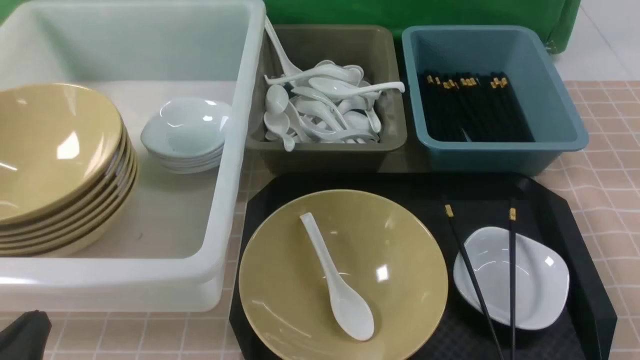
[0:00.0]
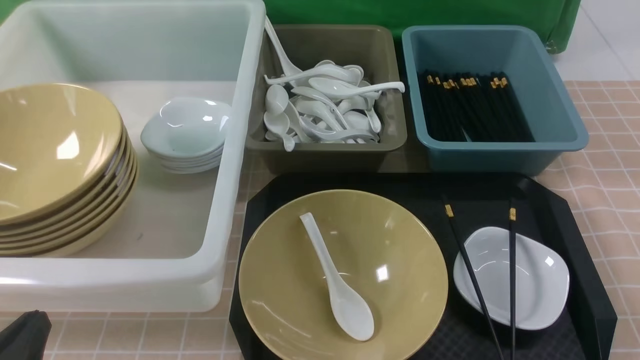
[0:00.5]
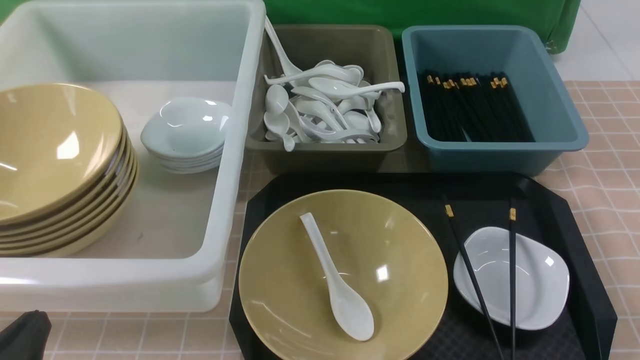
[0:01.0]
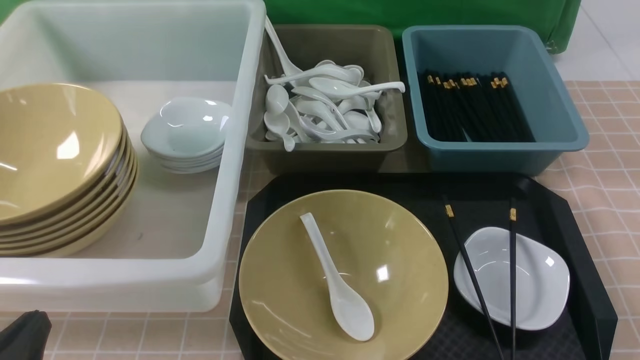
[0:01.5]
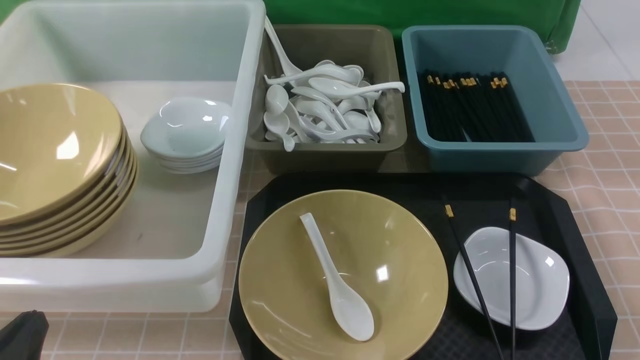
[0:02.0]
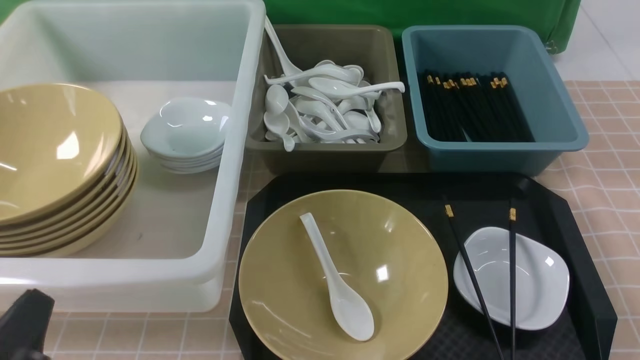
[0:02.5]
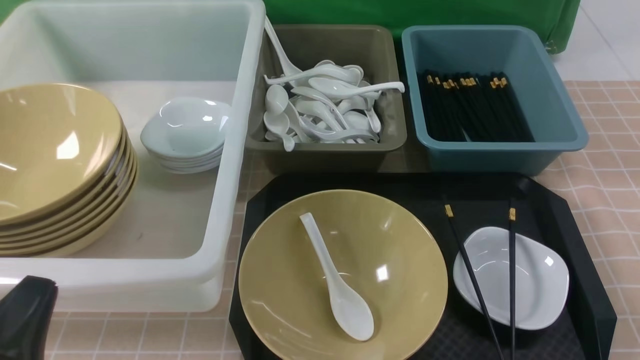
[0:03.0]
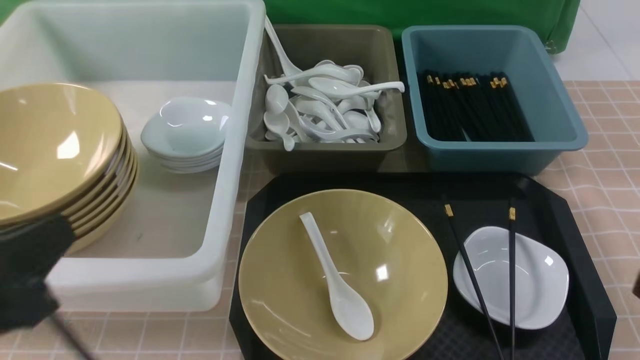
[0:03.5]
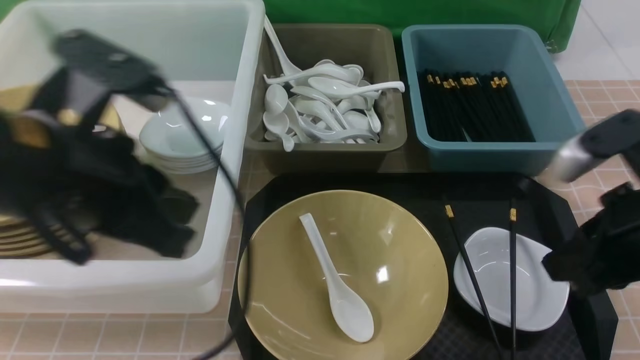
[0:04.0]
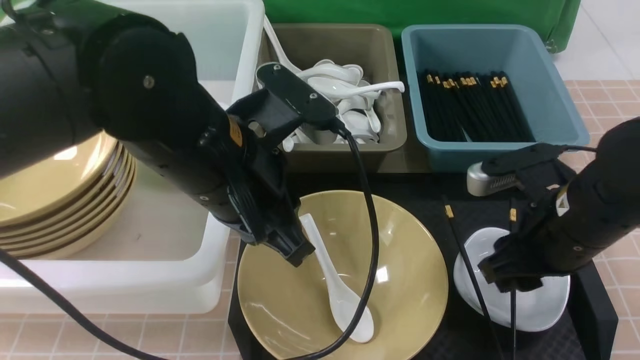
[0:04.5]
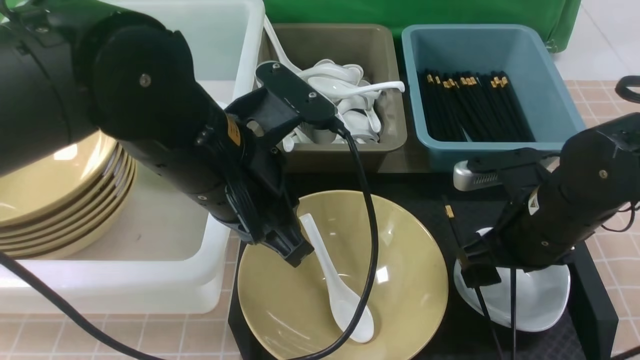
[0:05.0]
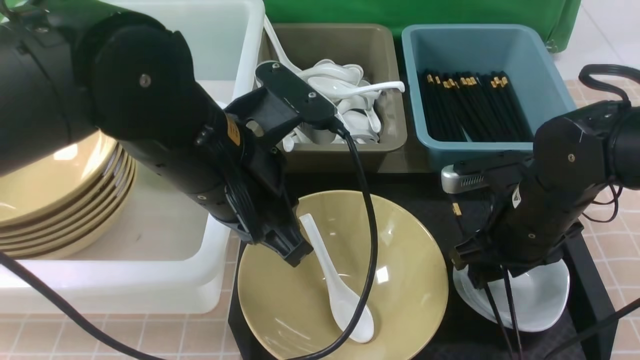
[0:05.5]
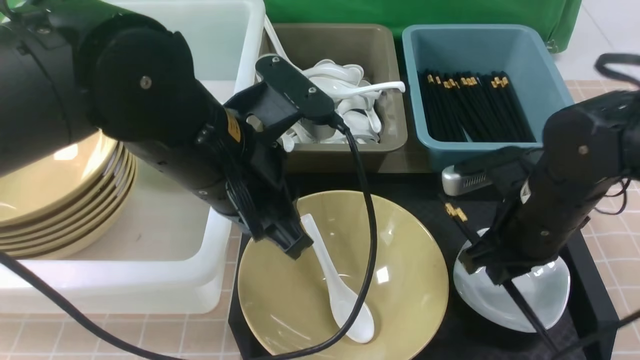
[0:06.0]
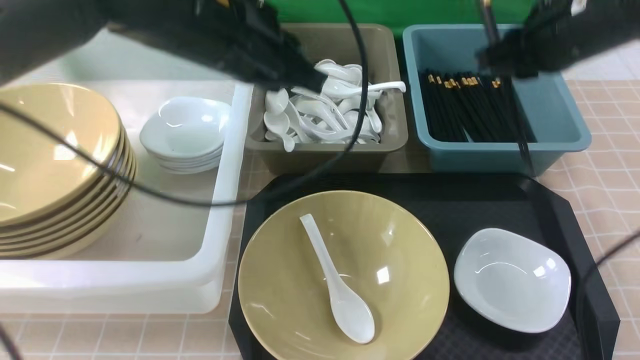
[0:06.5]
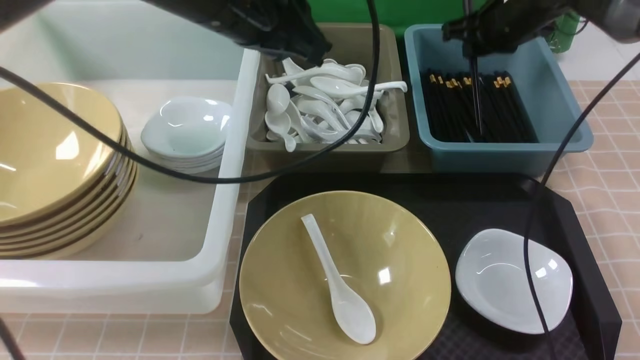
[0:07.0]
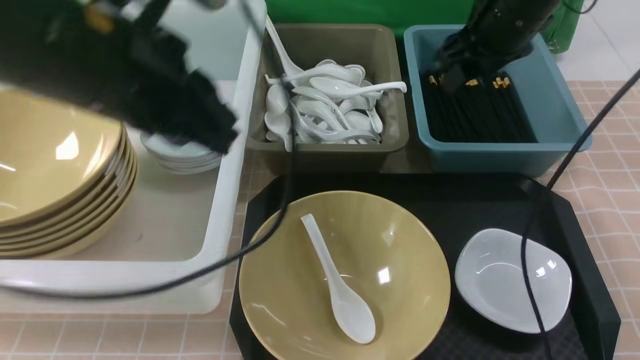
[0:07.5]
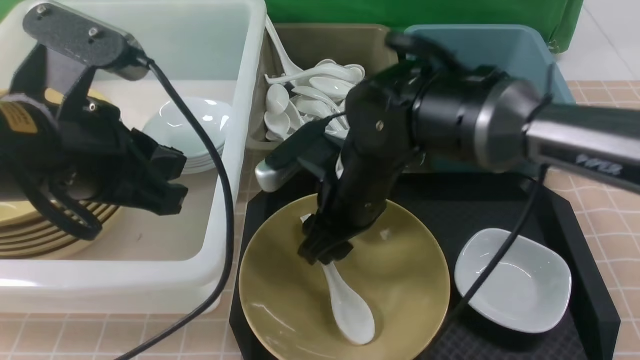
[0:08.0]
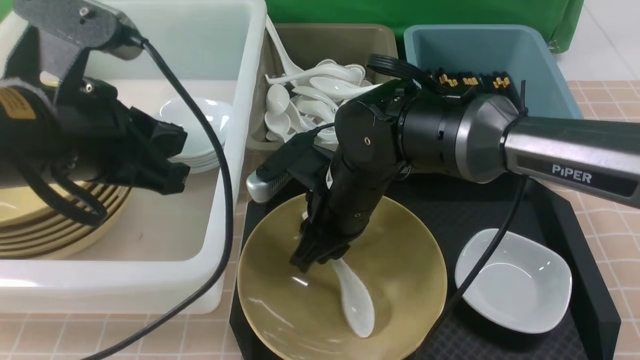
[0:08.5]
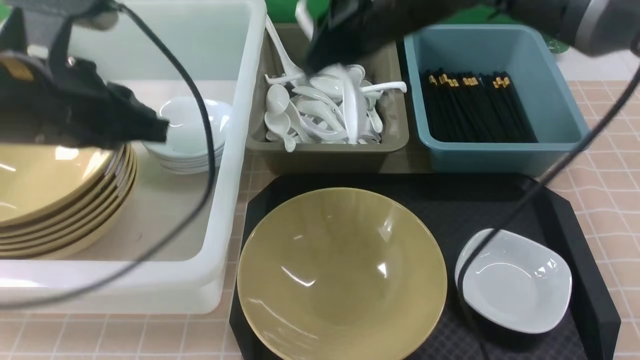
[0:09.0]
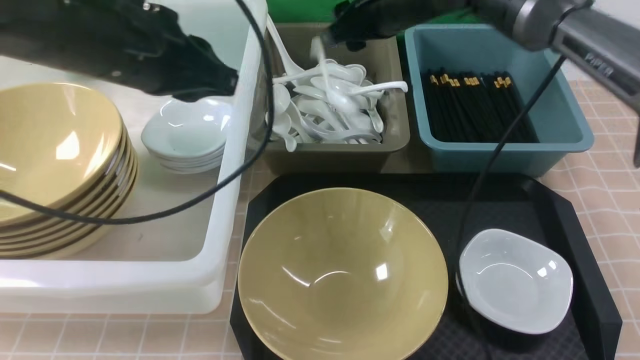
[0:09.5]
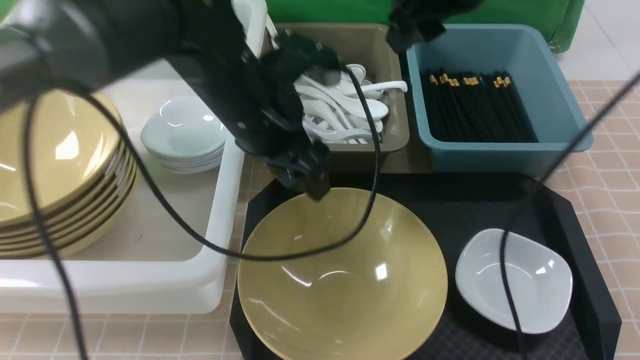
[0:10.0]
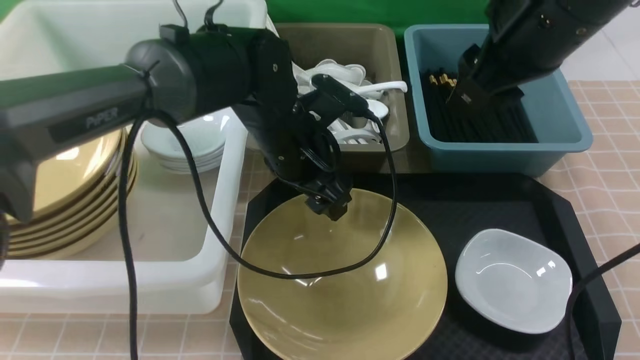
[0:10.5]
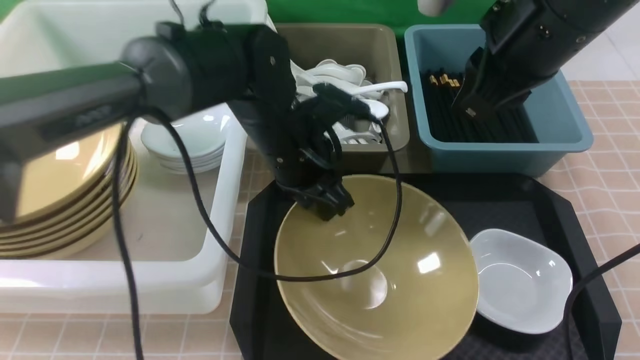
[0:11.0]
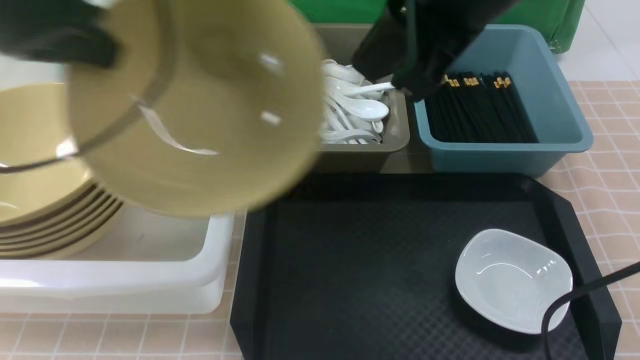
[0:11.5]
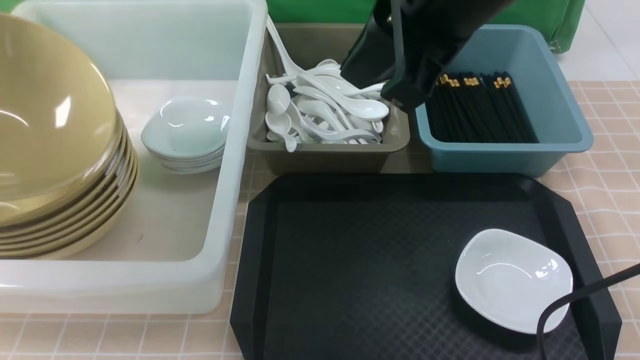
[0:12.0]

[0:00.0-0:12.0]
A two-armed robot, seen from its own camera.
Task of the whole recording: on brown table put chopsticks spoon bowls plates into blue grey white boxes.
Step, 0:00.0 to 0:06.0: use the right arm to grab the chopsticks.
Step, 0:06.5 to 0:07.0: use the right arm to put the chopsticks into the small storage box on the right.
Step, 0:07.5 to 0:08.5: use the right arm to grab the soup spoon in the middle.
Step, 0:09.0 to 0:09.5: use the right arm to put the soup spoon into the small storage box in the middle.
Step, 0:10.0 to 0:11.0: use the left arm to grab the yellow noodle bowl on the left.
0:00.0 to 0:02.0: The two grippers keep their place.
0:02.0 to 0:04.0: The right gripper is displaced forward, upward and to the left by about 20 cm. The left gripper moves upward, forward and to the right, about 25 cm.
0:04.0 to 0:06.0: The left gripper goes some 10 cm to the right; the right gripper moves forward and downward, approximately 10 cm, and opens and closes again.
0:06.0 to 0:08.0: The right gripper heads to the left, covering some 15 cm, reaches roughly 20 cm forward, then returns, and opens its fingers; the left gripper moves to the left, roughly 10 cm, and travels forward and back again, roughly 10 cm each way.
0:08.0 to 0:10.0: The right gripper is displaced upward and to the right by roughly 20 cm, and closes, then reopens, while the left gripper is displaced forward, to the right and downward by about 20 cm, and opens.
0:10.0 to 0:12.0: The right gripper is displaced backward by approximately 10 cm, and closes up. The left gripper travels to the left by approximately 35 cm, and closes.

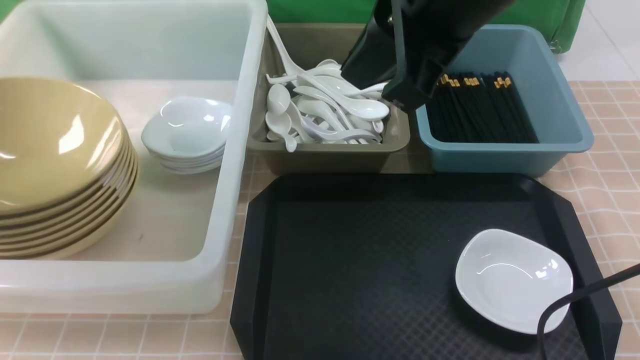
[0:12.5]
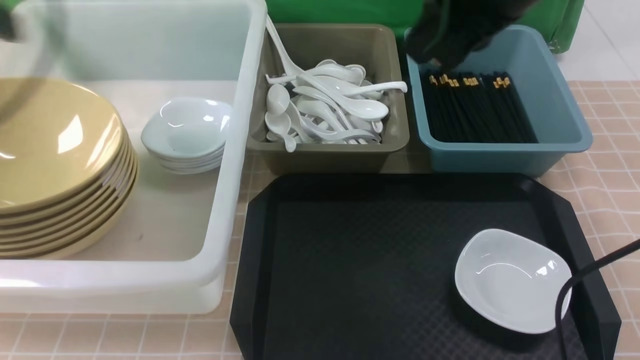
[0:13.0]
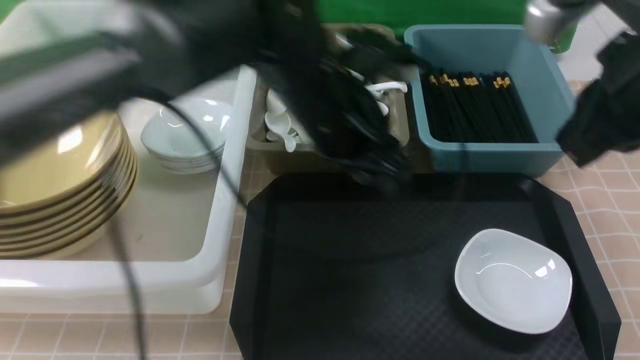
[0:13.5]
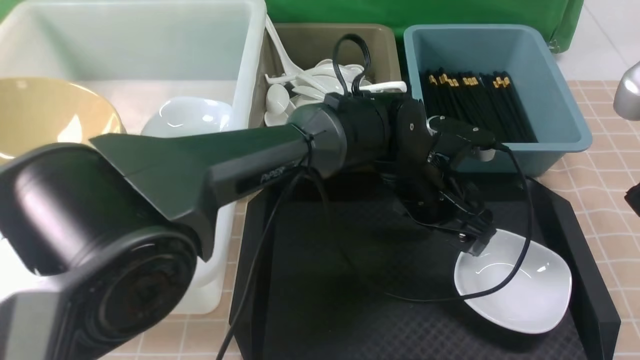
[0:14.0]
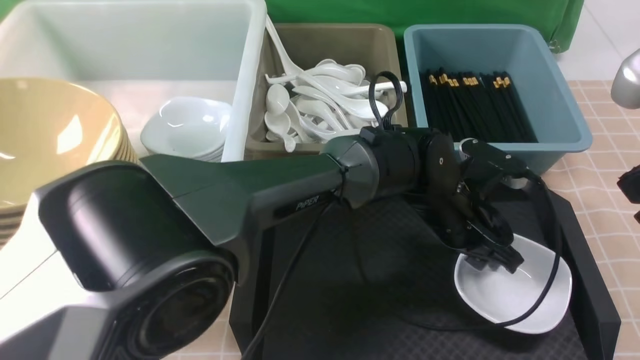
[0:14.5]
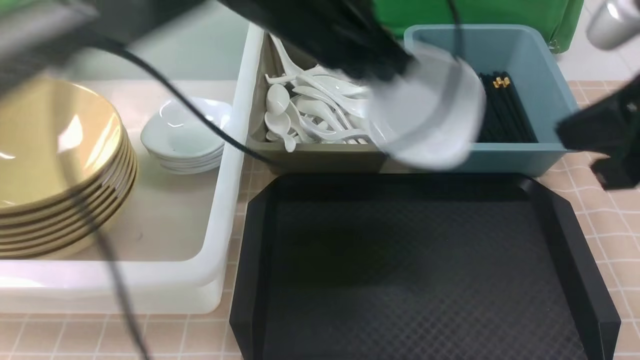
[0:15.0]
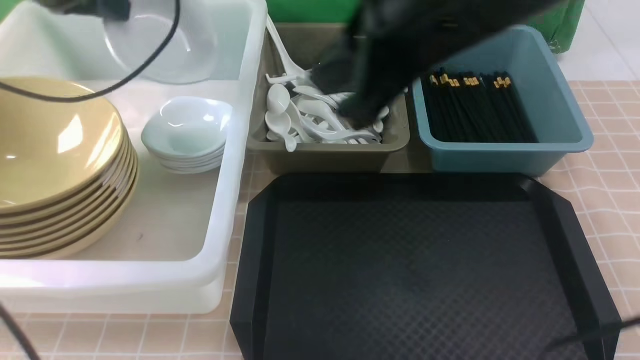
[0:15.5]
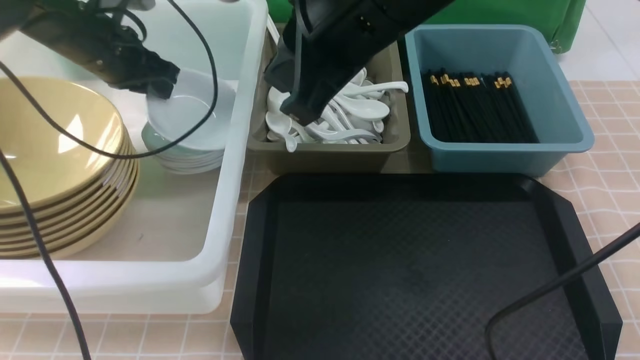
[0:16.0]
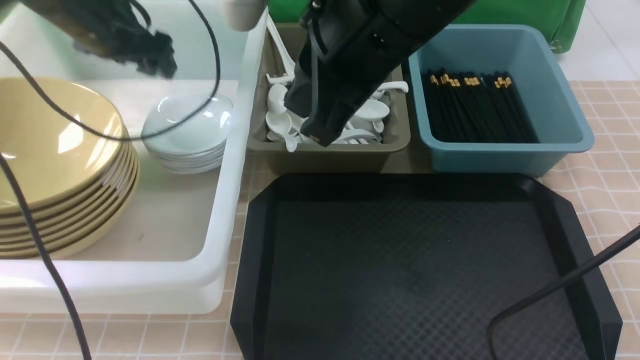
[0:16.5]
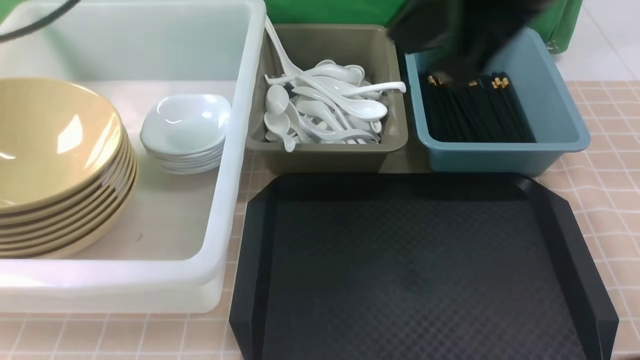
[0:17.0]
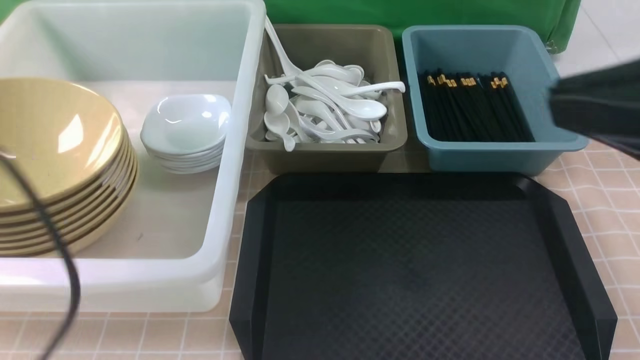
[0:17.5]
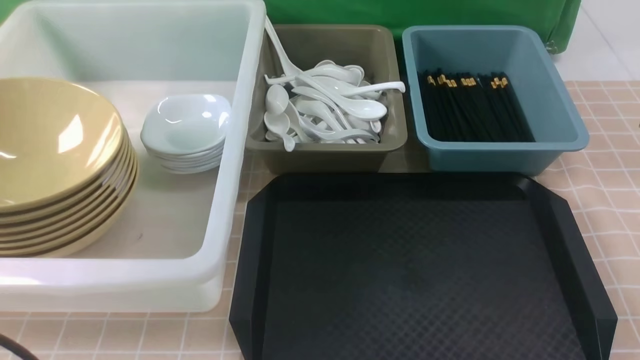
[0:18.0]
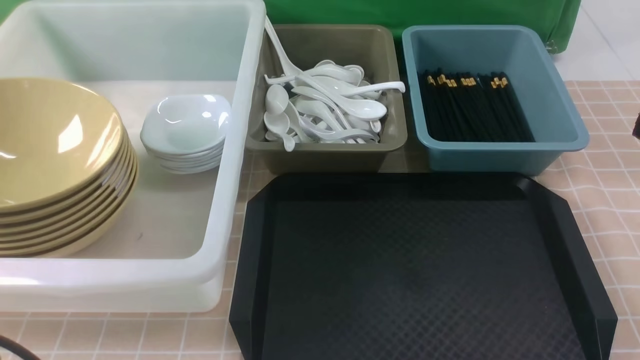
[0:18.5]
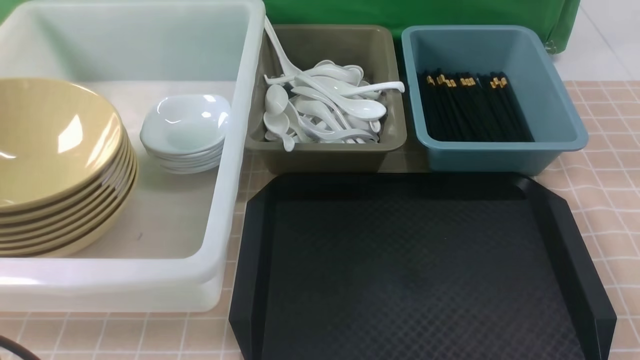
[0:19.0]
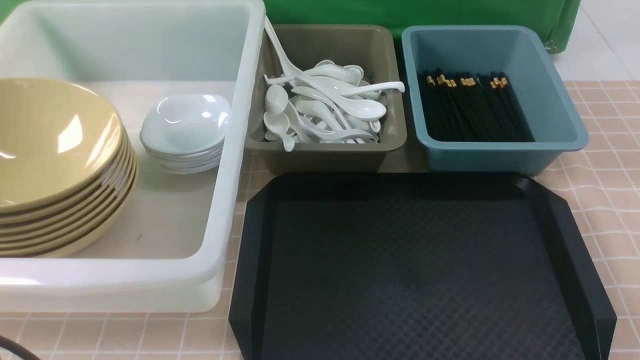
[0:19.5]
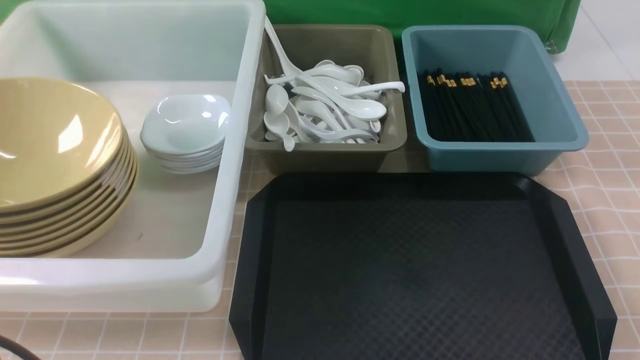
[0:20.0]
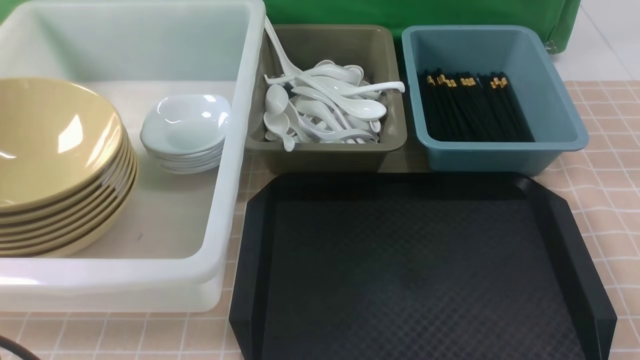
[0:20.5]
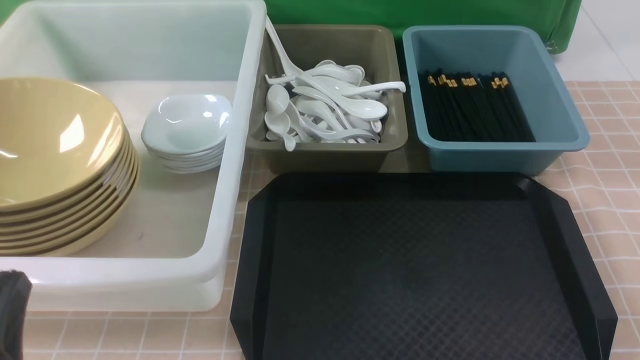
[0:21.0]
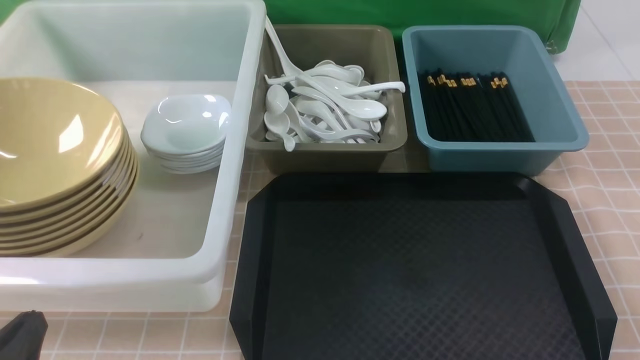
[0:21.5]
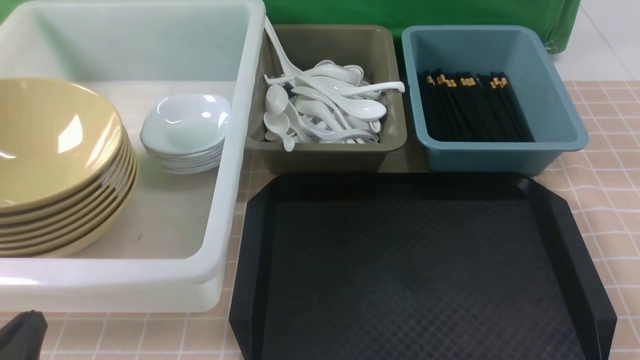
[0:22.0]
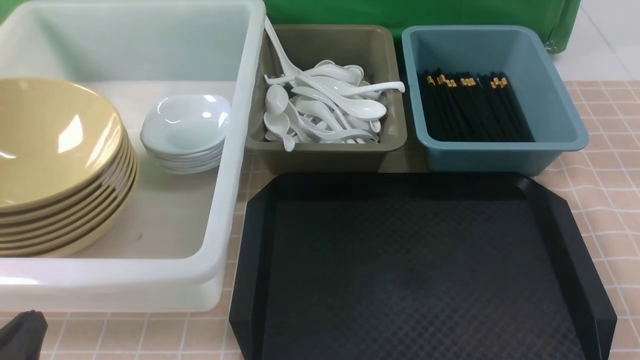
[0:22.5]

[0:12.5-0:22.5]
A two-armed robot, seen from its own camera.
Task of the whole recording: on brown table put chopsticks spoon bowls plates into blue grey white boxes.
Step, 0:12.5 to 0:14.5: use the left arm to grab the plate.
Step, 0:15.0 to 0:16.5: use the left arm to put the plate into the large storage box on the left.
0:12.5 to 0:14.5: The right gripper moves to the right, backward and downward, roughly 20 cm, while the left gripper goes roughly 50 cm to the right, and closes its fingers.
0:14.5 to 0:16.5: The left gripper moves to the left and upward, approximately 40 cm, and opens up. Meanwhile the right gripper shifts about 20 cm to the left and forward.
0:16.5 to 0:18.5: The right gripper goes about 25 cm backward and to the right, while the left gripper travels backward by roughly 40 cm, and closes its fingers.
0:20.5 to 0:22.5: The left gripper goes roughly 10 cm downward.
